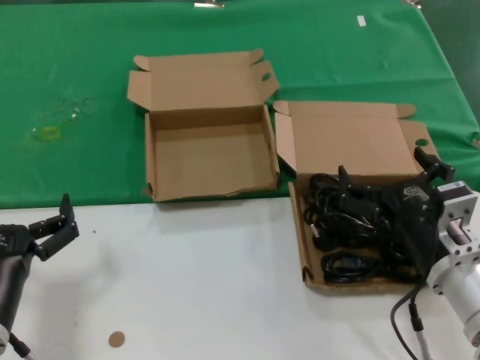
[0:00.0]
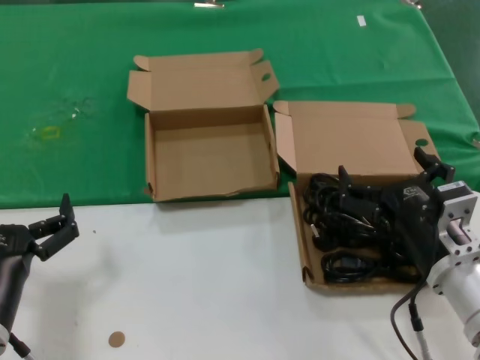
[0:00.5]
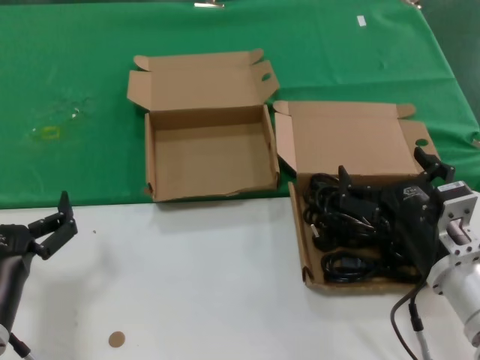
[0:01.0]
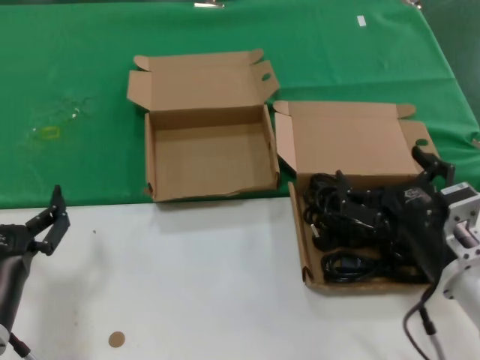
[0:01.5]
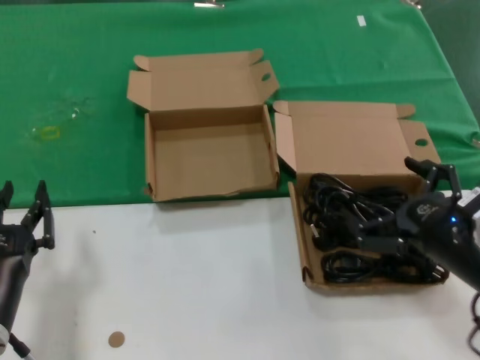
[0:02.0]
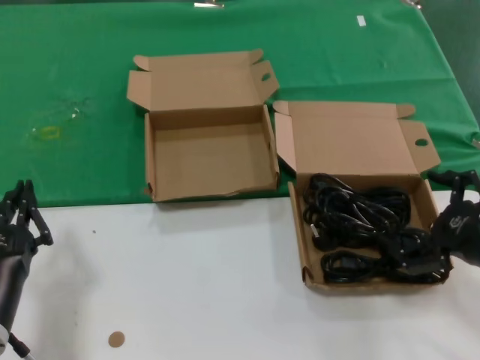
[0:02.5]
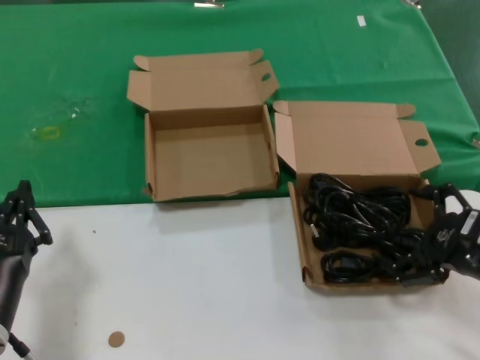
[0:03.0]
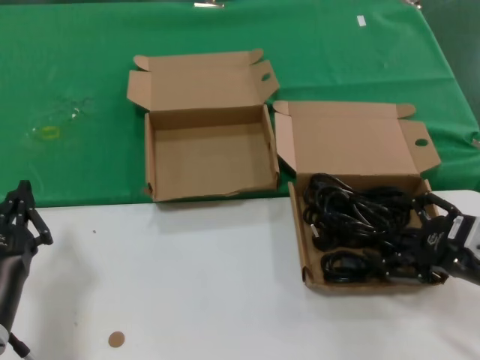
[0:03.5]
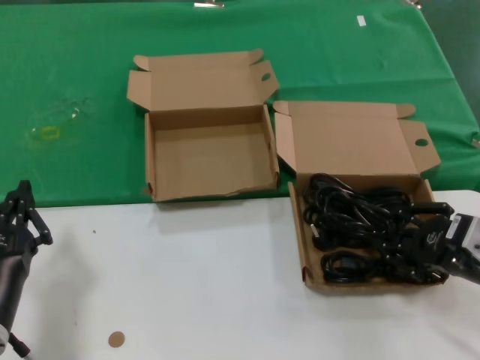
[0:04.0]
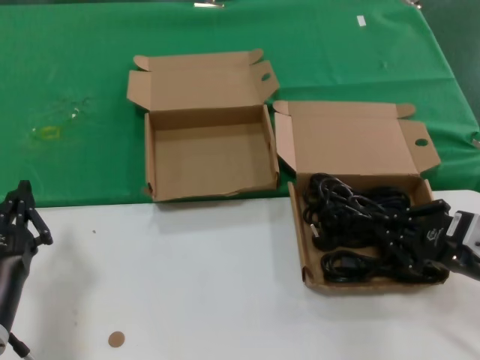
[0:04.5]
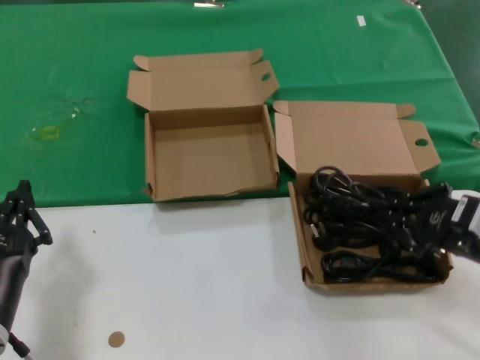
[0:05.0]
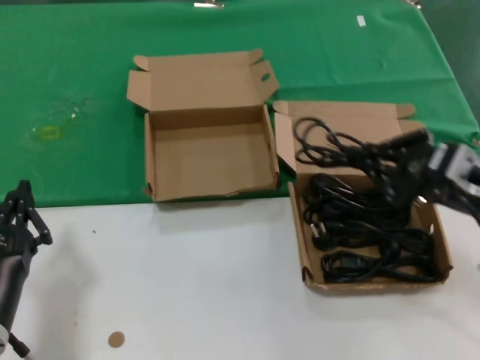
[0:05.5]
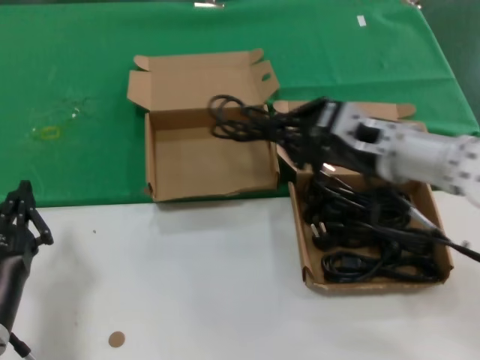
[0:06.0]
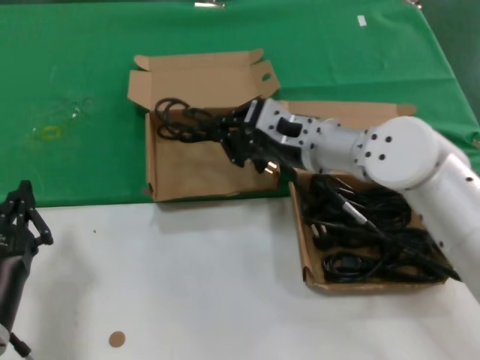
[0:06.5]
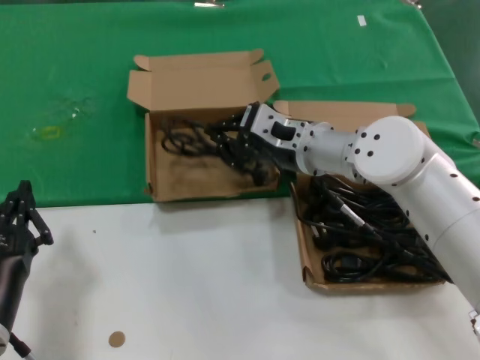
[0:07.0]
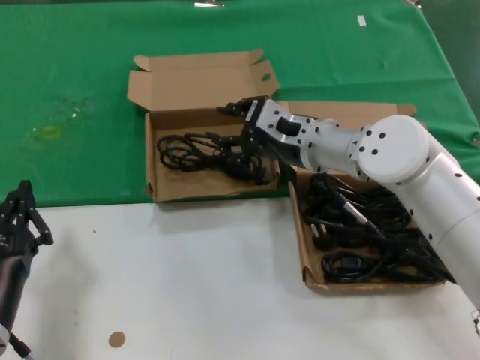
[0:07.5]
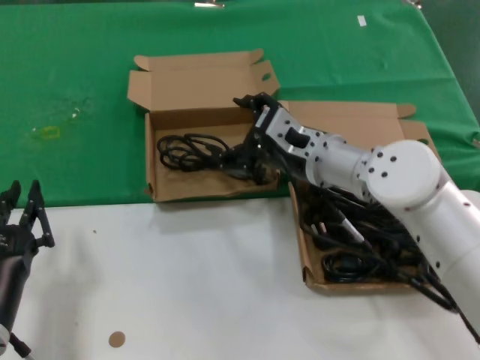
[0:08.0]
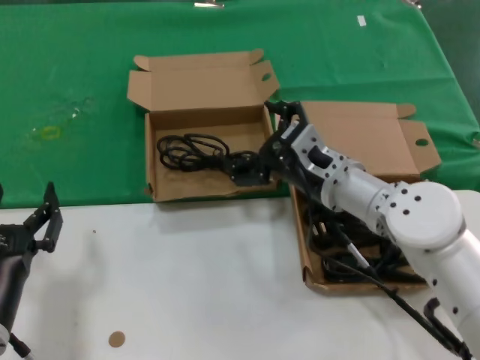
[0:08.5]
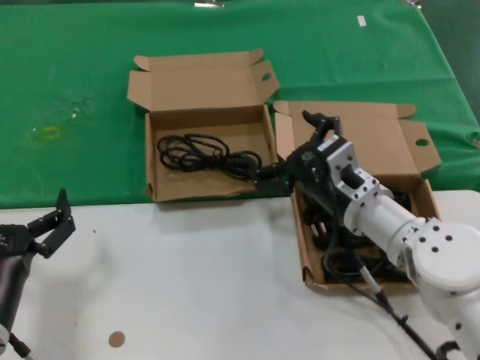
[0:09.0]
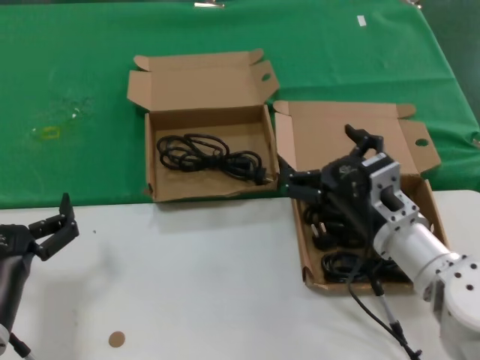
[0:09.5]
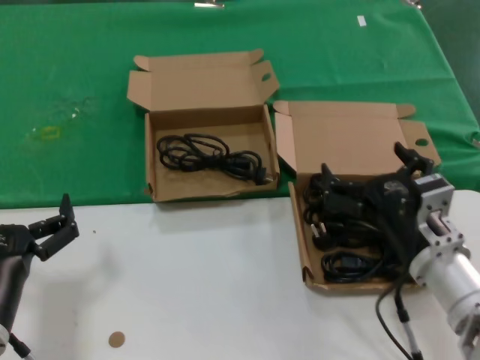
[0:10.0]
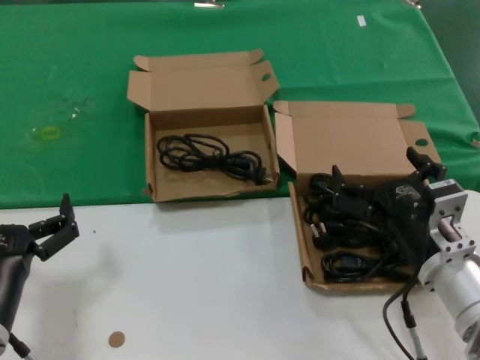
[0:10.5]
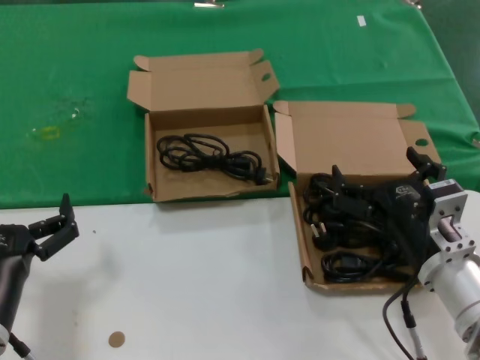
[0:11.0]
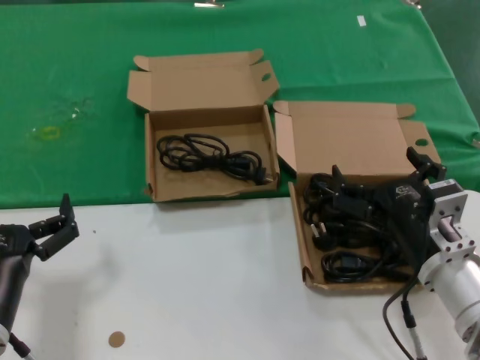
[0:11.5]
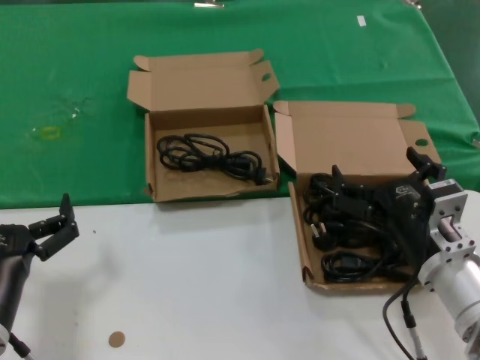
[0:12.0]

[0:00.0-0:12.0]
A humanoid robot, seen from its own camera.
Task of the whole recording: take the parts from the box containing them and put them into an empty box.
Step, 0:00.0 to 0:04.0: Grasp the data cable.
Step, 0:04.5 to 0:07.0: Place the data cable in the another box.
0:00.0 to 0:02.0: The right hand goes about 5 cm to the right.
0:02.0 to 0:04.0: The right hand shifts roughly 5 cm to the right.
0:04.0 to 0:06.0: The right hand moves to the left, forward and upward, roughly 20 cm.
0:06.0 to 0:08.0: The right hand is displaced to the left and forward by roughly 10 cm.
0:08.0 to 0:10.0: The right hand heads backward, to the right and downward, covering about 20 cm.
0:10.0 to 0:12.0: The hands make only small movements.

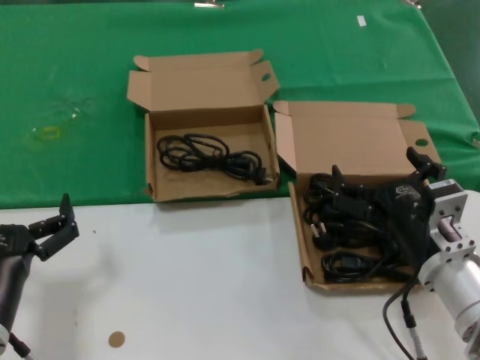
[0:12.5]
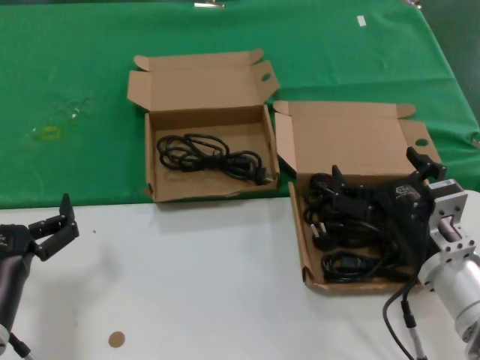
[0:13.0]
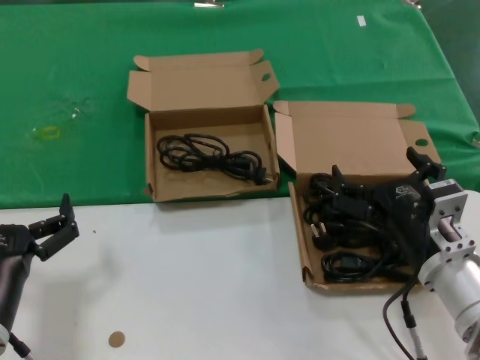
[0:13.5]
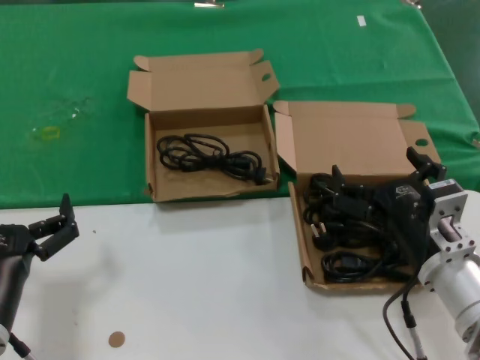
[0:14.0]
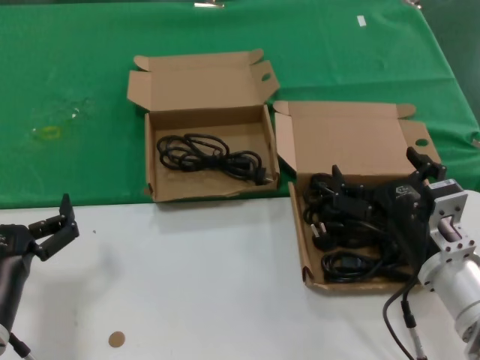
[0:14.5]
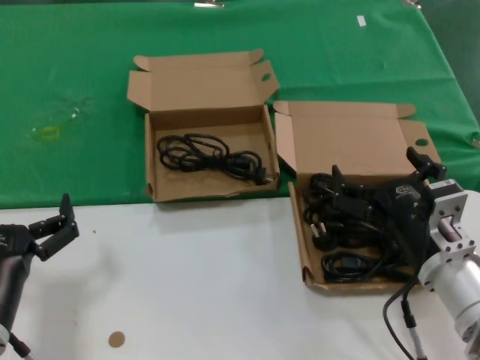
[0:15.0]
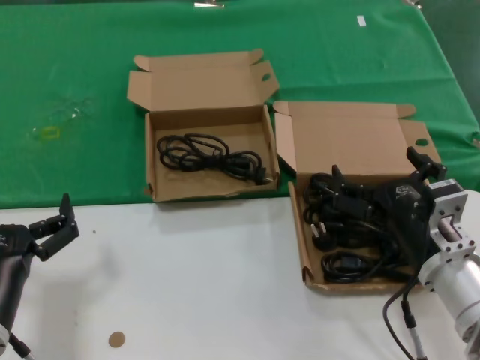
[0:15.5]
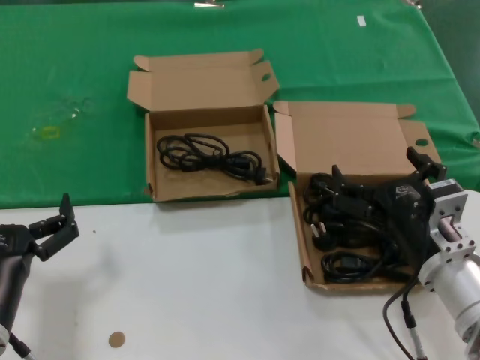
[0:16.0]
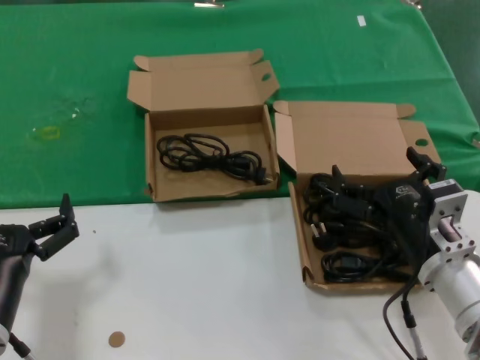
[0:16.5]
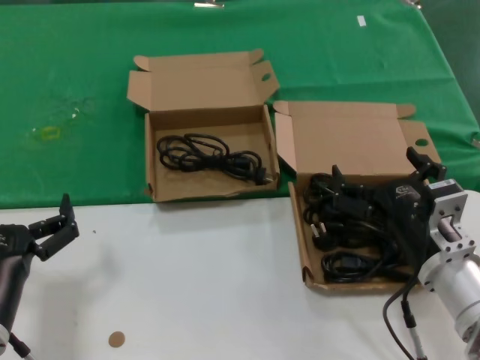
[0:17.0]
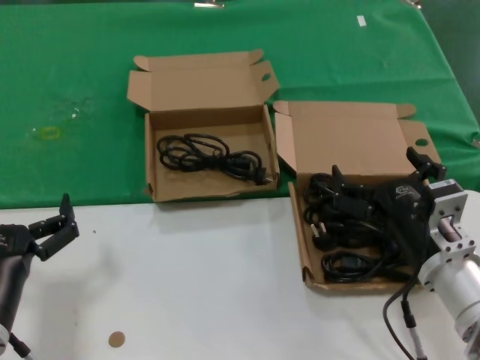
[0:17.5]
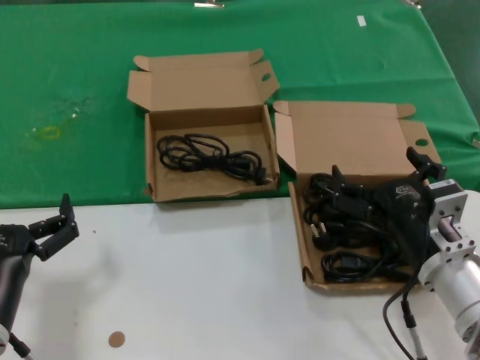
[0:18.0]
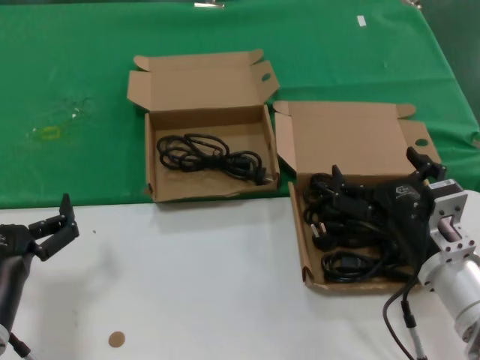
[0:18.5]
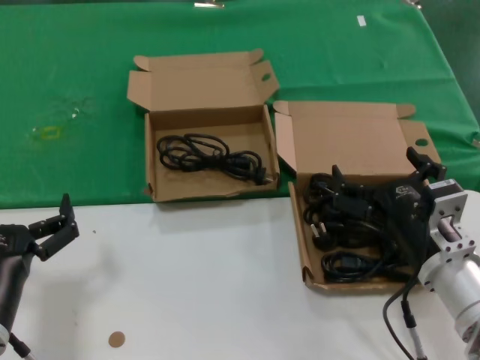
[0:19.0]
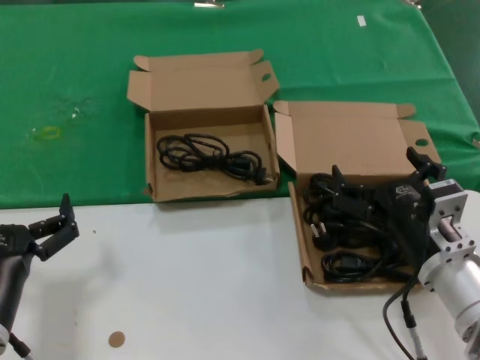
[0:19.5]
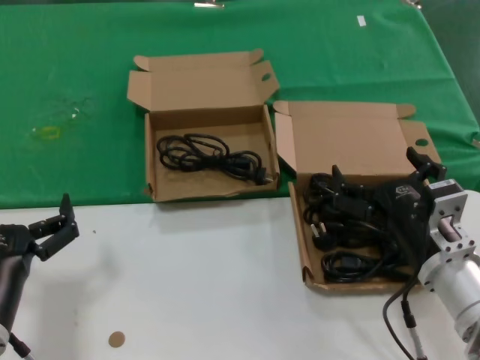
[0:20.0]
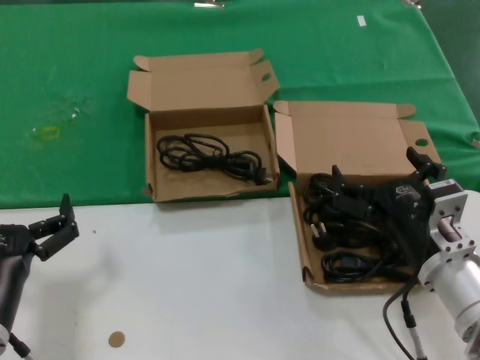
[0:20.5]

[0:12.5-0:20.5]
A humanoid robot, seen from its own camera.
Task of the whole recording: take the parts from the box containing them and put them into an empty box.
0:12.5 to 0:20.5: Neither hand changes place.

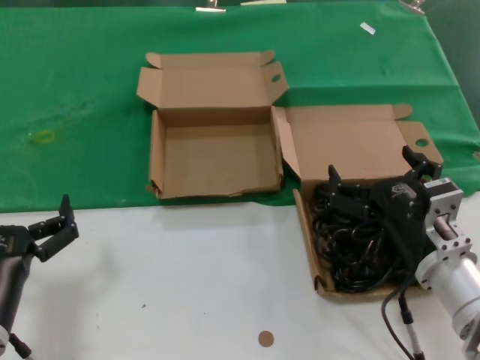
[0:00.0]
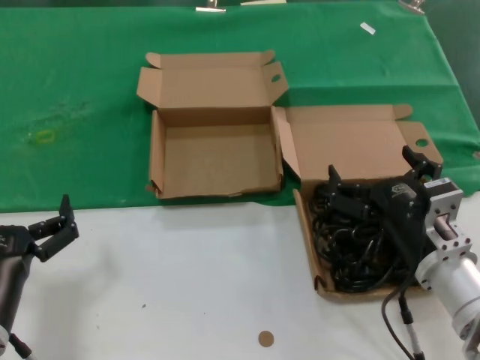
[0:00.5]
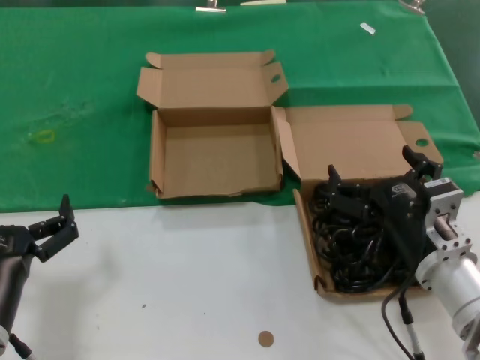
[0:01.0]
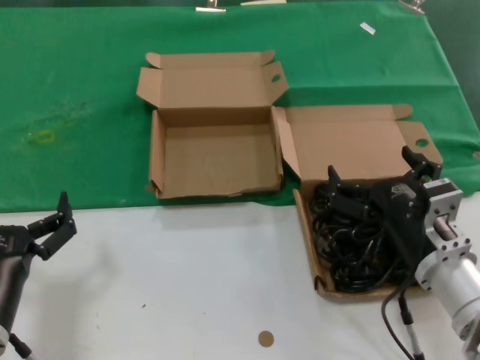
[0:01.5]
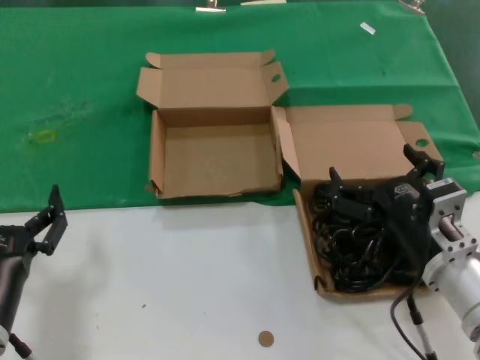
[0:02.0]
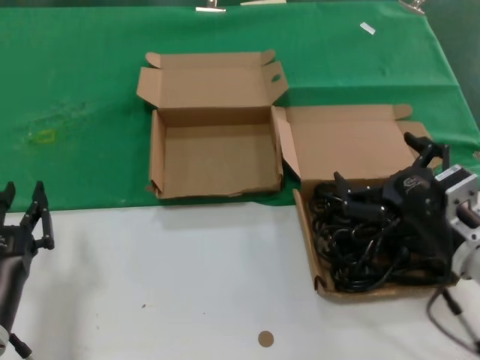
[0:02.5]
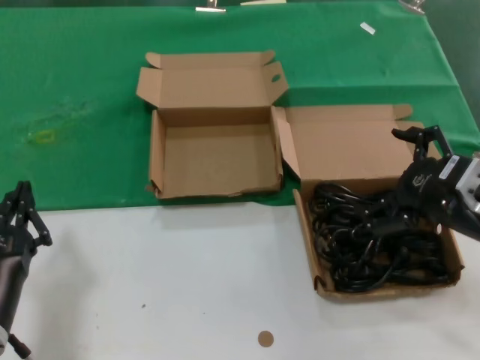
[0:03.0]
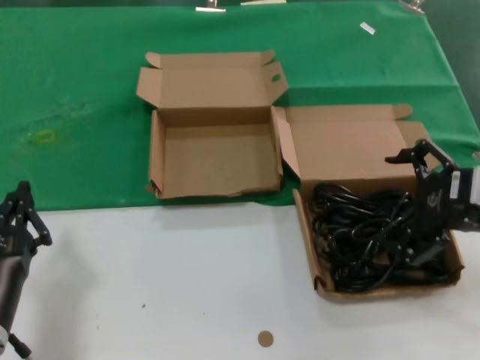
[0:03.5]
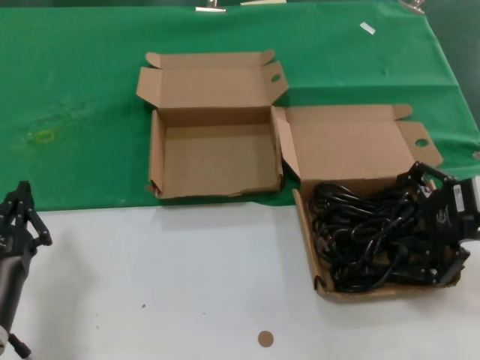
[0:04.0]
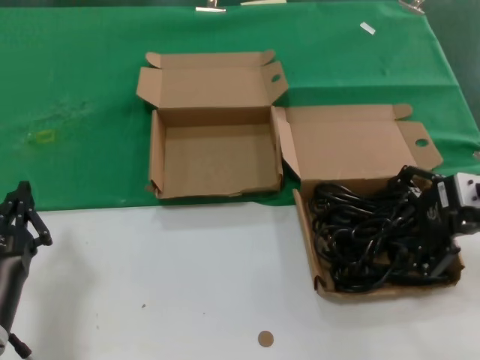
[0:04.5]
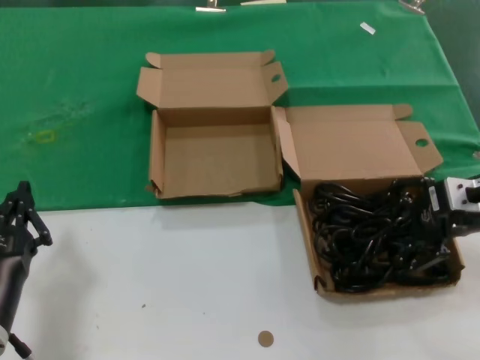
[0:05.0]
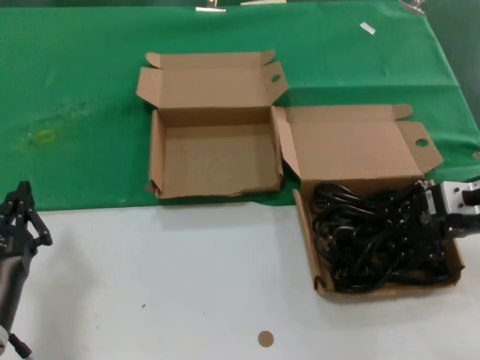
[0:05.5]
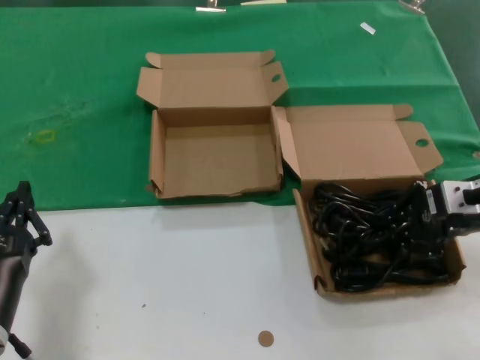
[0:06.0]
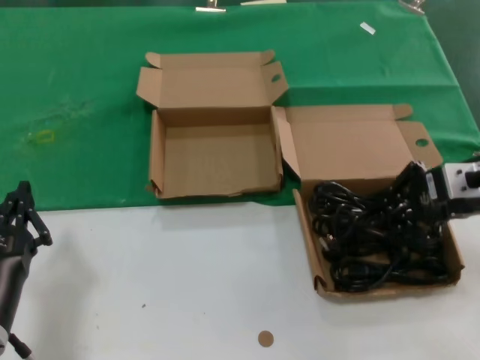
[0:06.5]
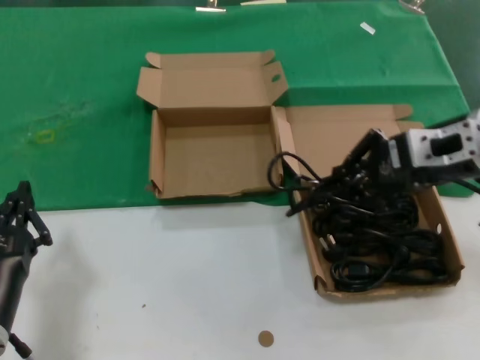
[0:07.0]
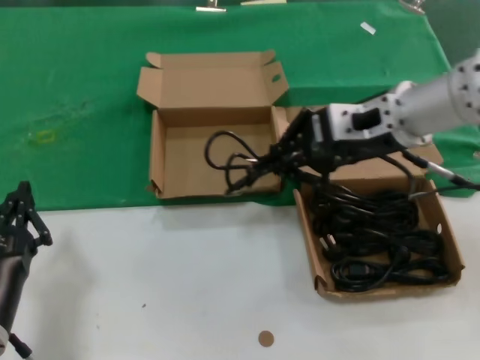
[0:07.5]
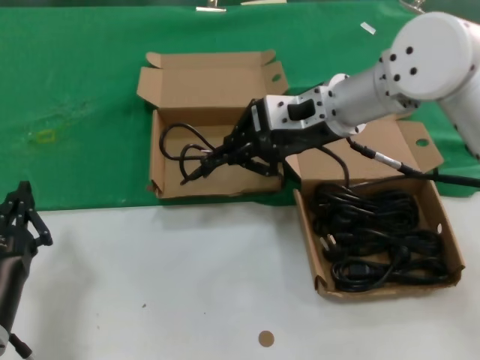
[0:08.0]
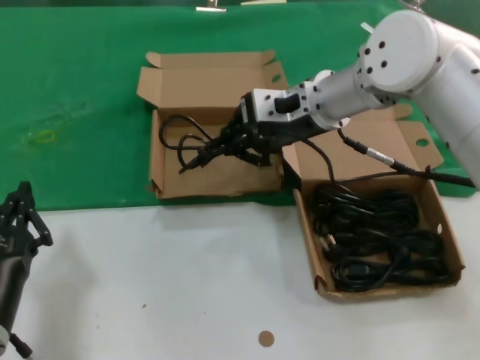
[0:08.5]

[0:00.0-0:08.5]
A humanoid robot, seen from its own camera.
Task of the whole recording: take the parts from the box containing them and put them into an empty box.
Step, 0:00.0 to 0:05.5: Grasp the data cable.
0:00.0 to 0:02.0: Both hands stay about where they are.
0:02.0 to 0:04.0: The right hand moves upward and to the right, some 20 cm.
0:04.0 to 0:06.5: The hands make only small movements.
0:06.5 to 0:08.5: The right hand moves to the left and forward, roughly 25 cm.
